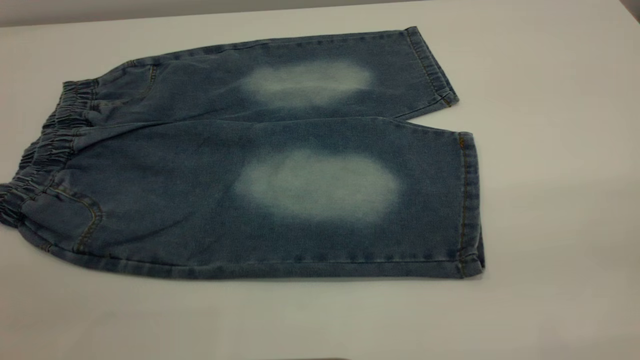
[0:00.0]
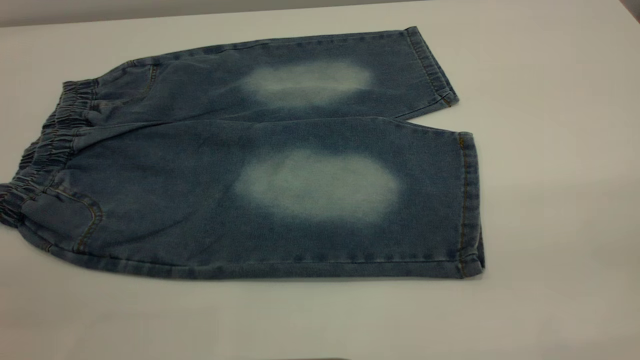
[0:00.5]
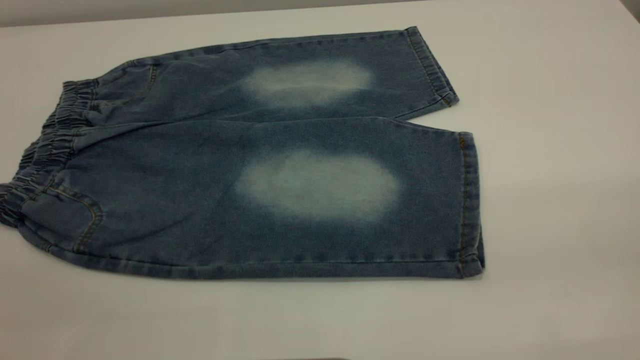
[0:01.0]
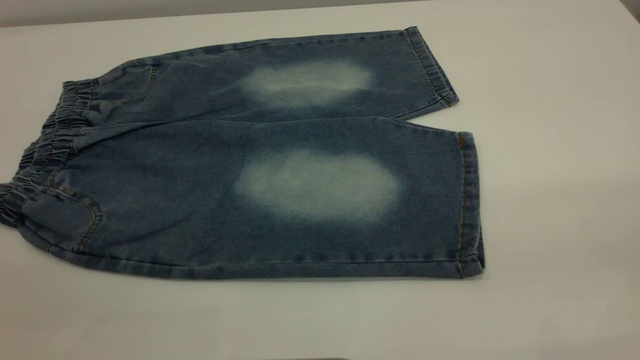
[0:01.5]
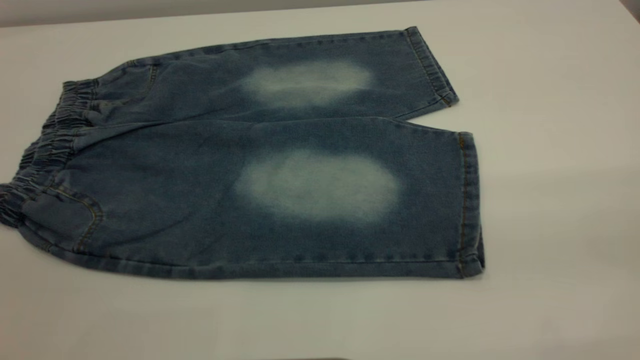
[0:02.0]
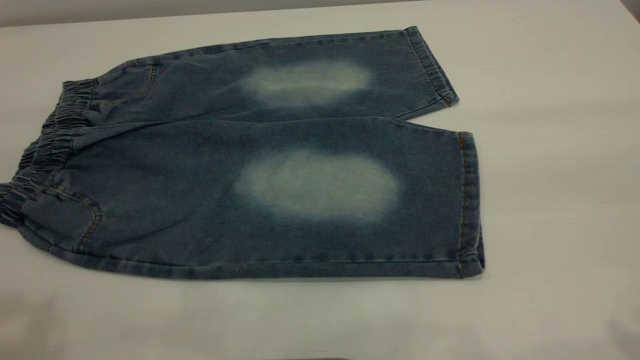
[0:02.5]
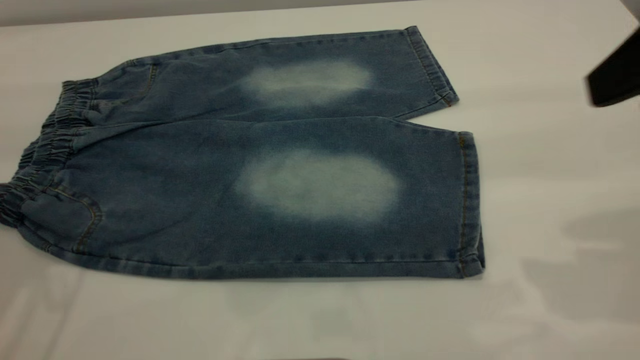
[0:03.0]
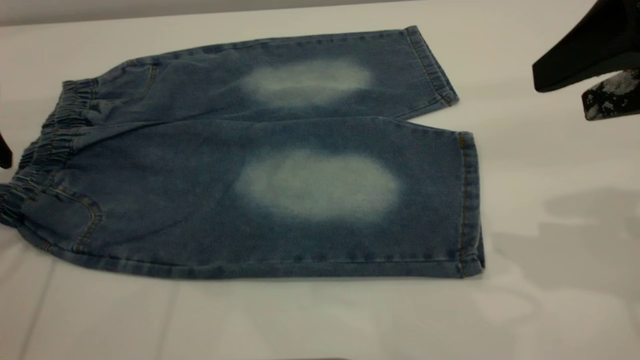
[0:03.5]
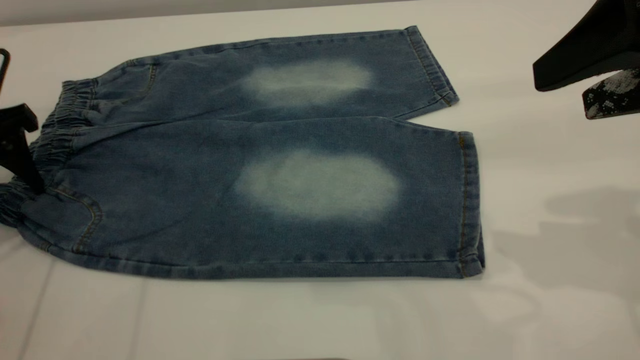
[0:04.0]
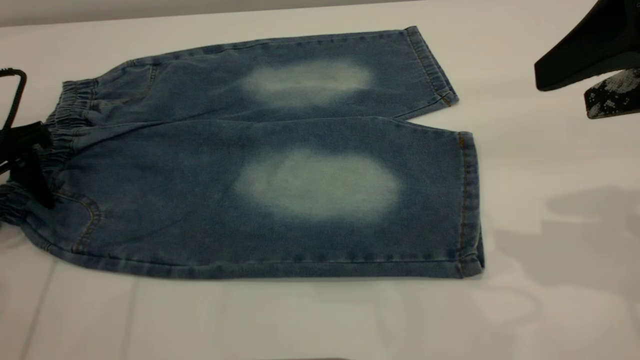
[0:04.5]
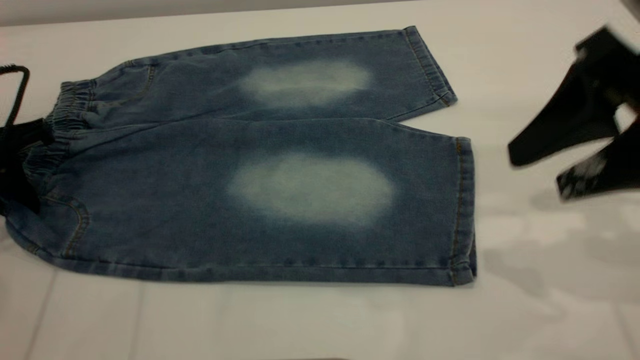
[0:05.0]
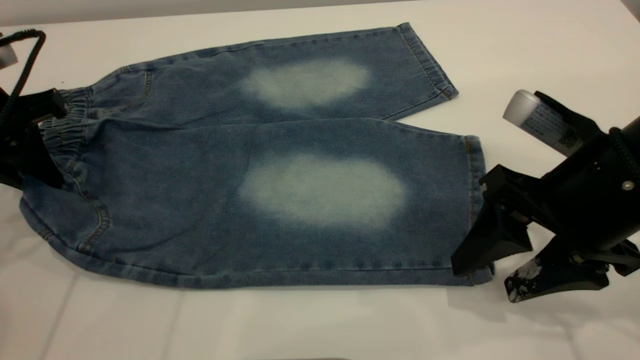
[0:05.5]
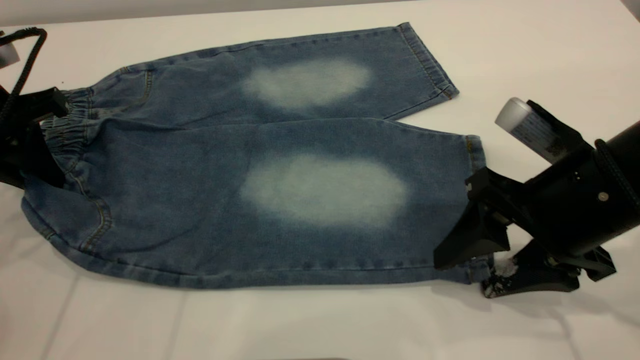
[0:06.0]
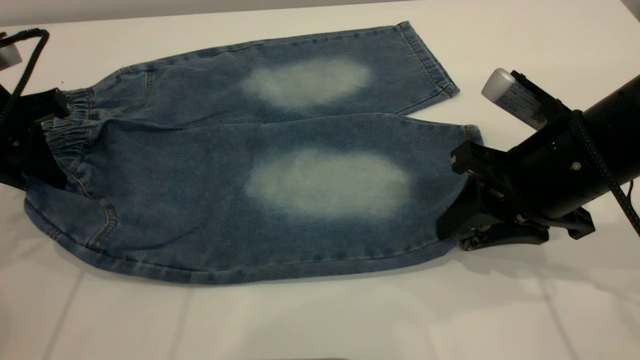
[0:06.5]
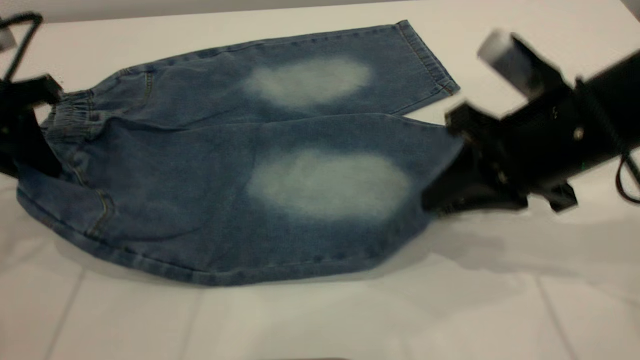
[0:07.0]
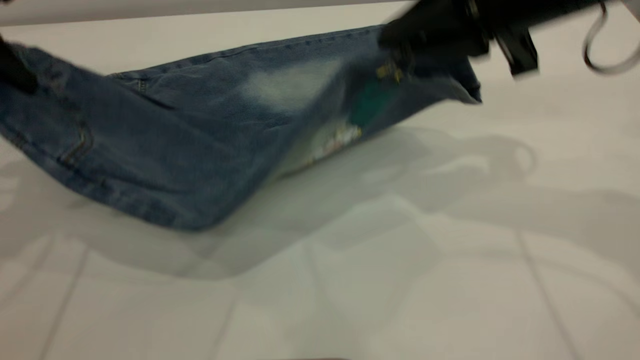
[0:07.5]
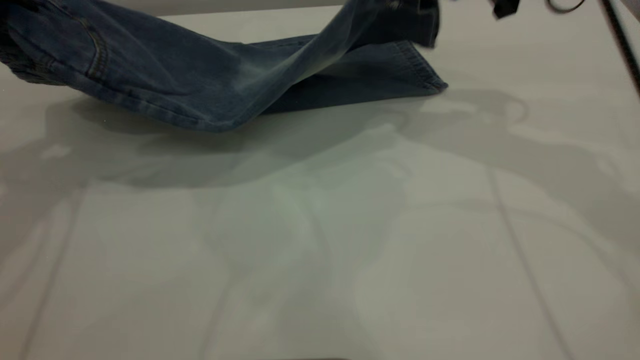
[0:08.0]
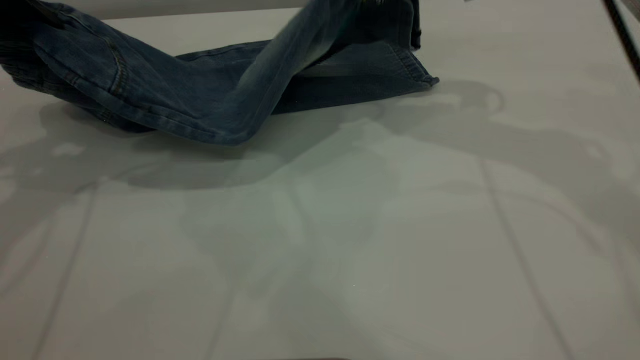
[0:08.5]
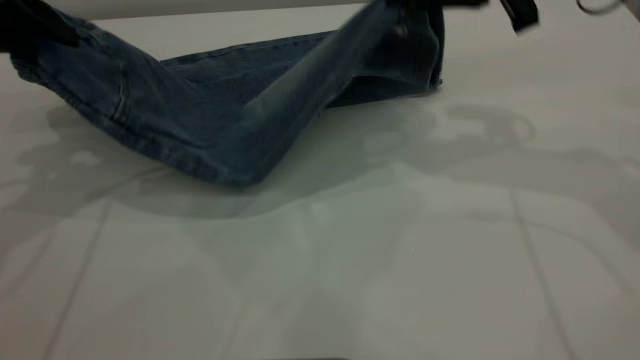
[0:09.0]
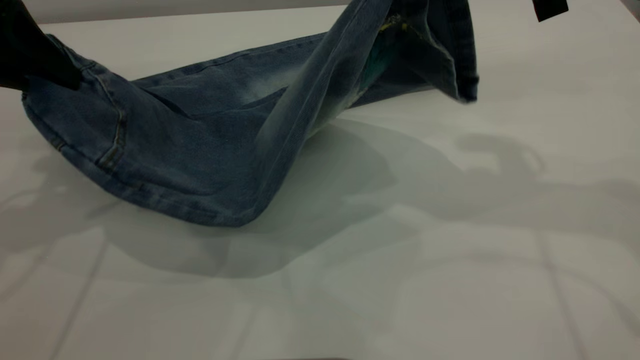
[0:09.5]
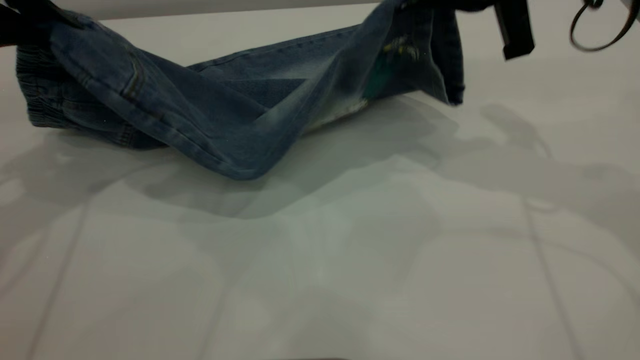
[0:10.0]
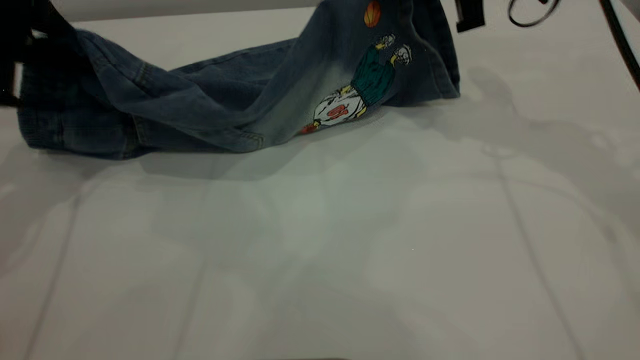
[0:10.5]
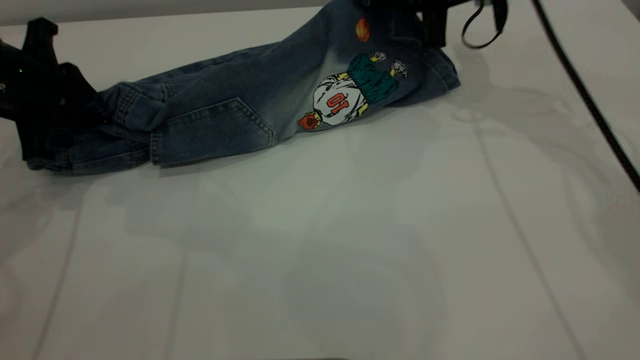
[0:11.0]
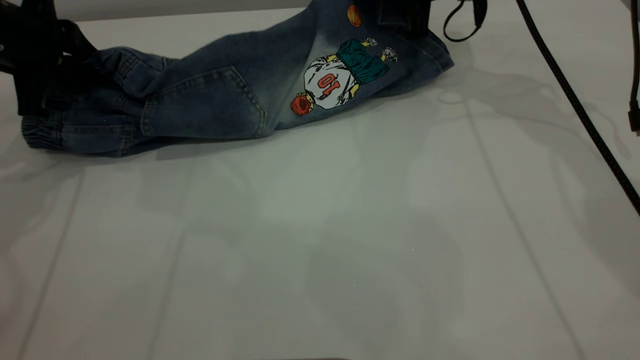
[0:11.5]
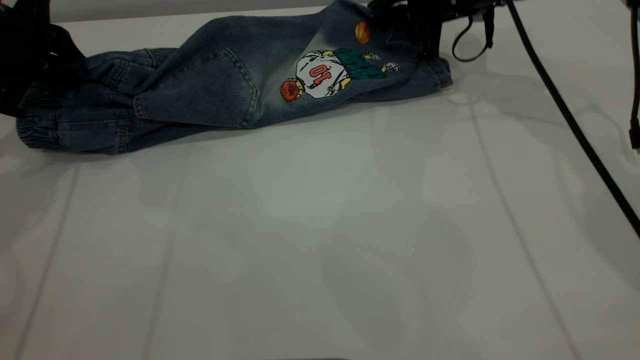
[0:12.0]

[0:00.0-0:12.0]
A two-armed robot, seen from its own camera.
0:02.0 to 0:04.0: The left gripper moves forward and downward, approximately 40 cm, while the right gripper goes approximately 25 cm forward and downward.
0:04.0 to 0:06.0: The left gripper closes its fingers; the right gripper shifts some 15 cm downward.
0:06.0 to 0:08.0: The left gripper heads upward, covering approximately 10 cm, while the right gripper is displaced forward and upward by approximately 20 cm, and closes.
0:10.0 to 0:12.0: The right gripper is displaced forward and downward by some 20 cm; the left gripper goes about 10 cm downward and forward.

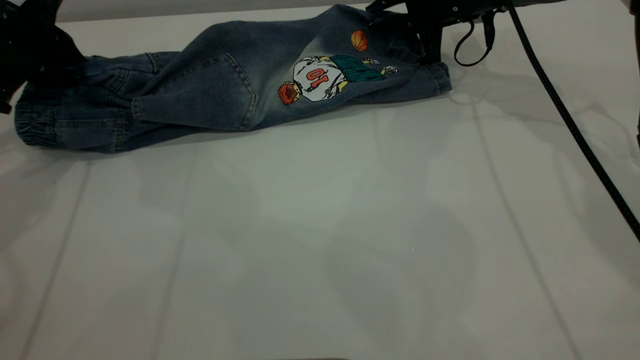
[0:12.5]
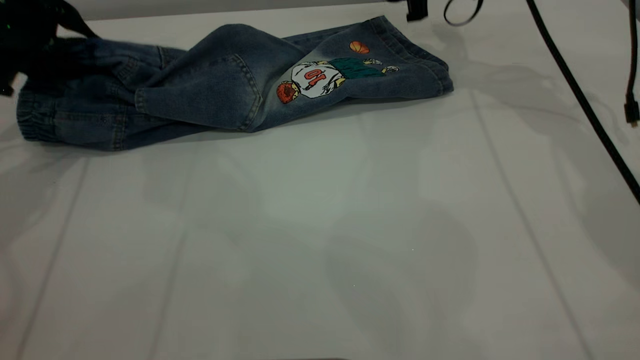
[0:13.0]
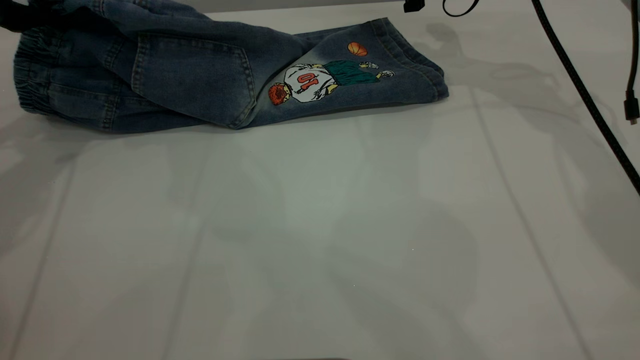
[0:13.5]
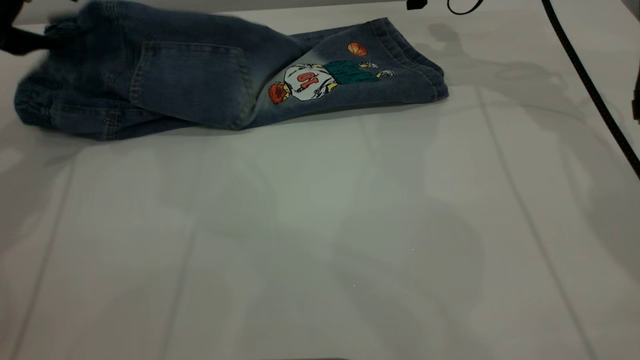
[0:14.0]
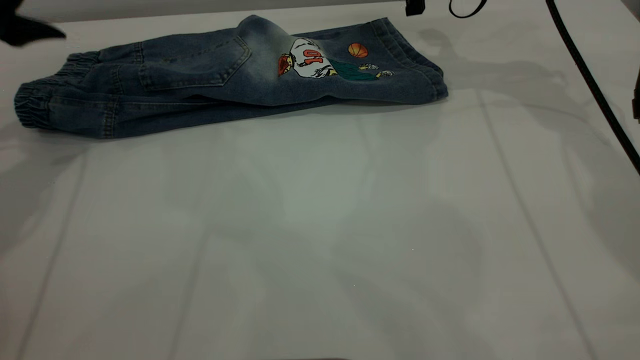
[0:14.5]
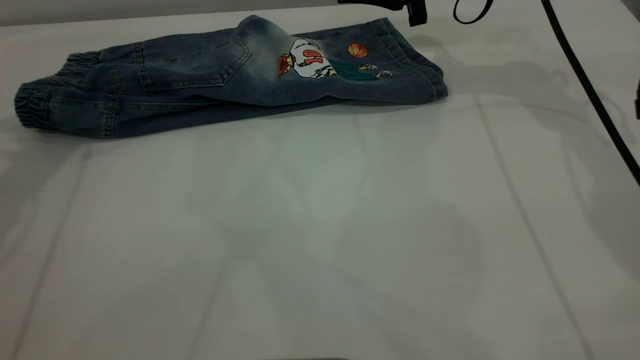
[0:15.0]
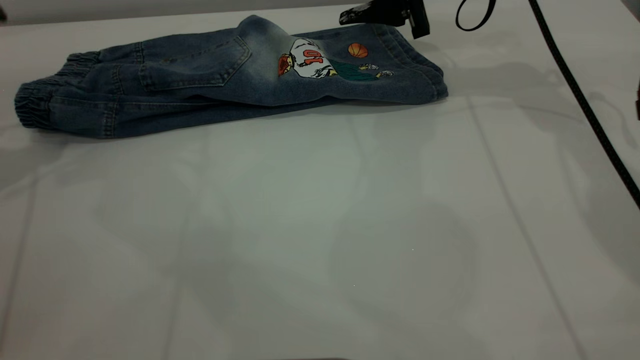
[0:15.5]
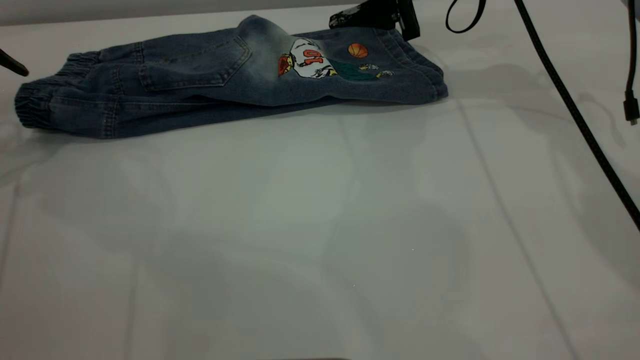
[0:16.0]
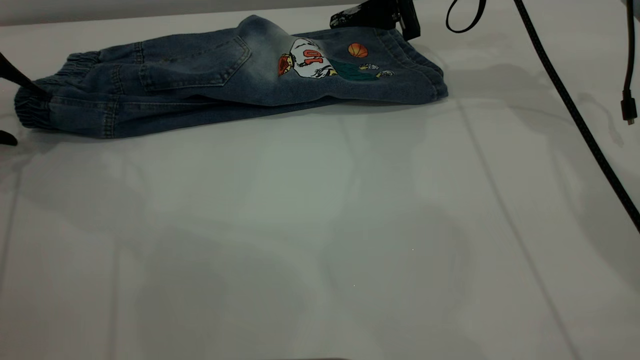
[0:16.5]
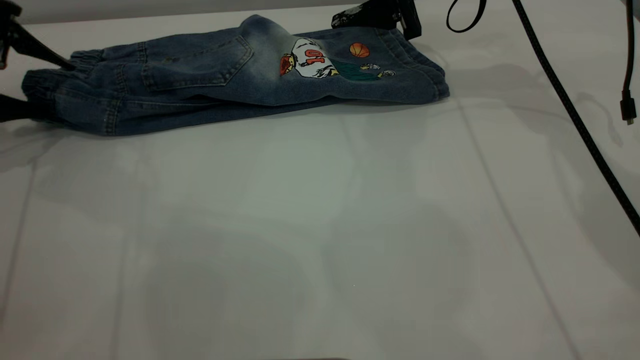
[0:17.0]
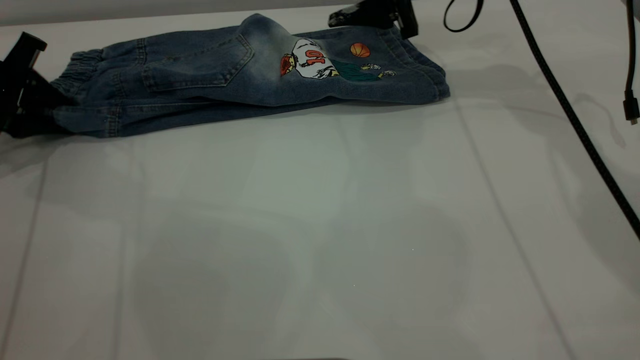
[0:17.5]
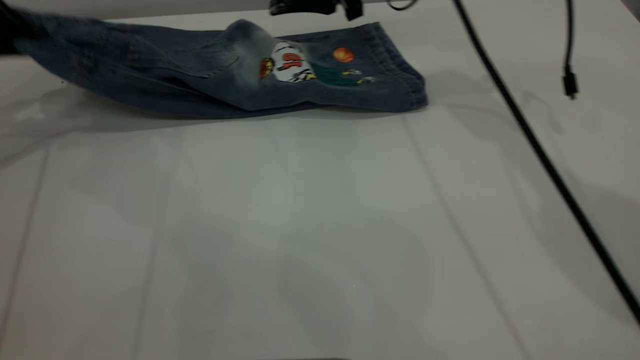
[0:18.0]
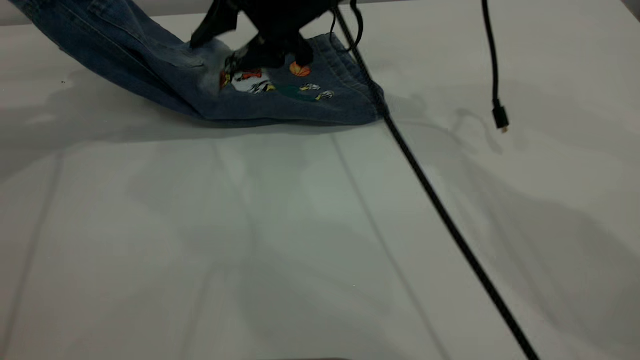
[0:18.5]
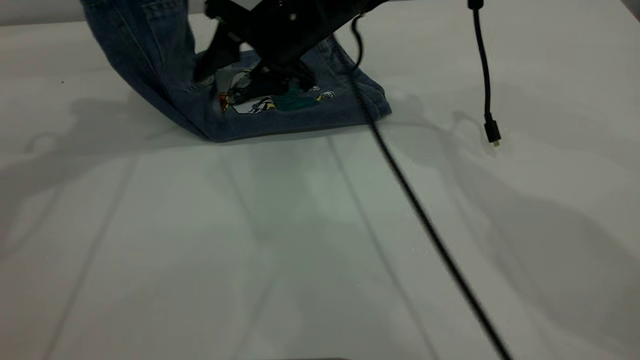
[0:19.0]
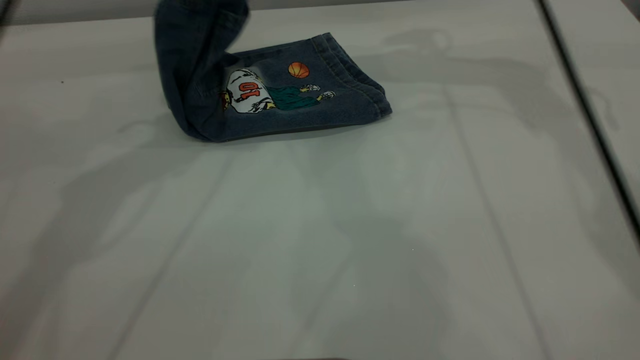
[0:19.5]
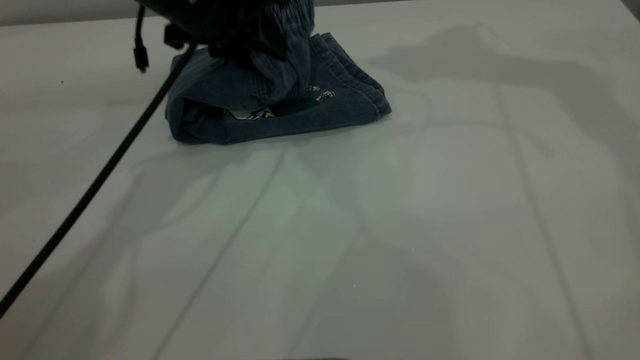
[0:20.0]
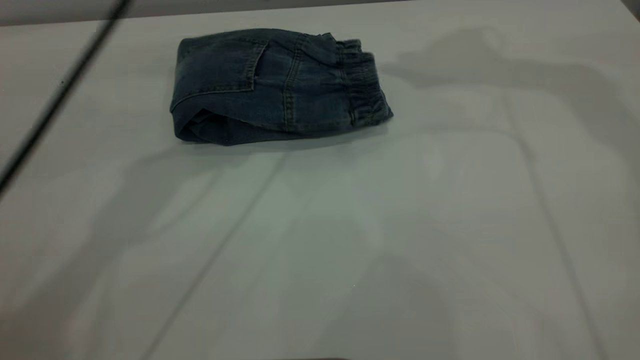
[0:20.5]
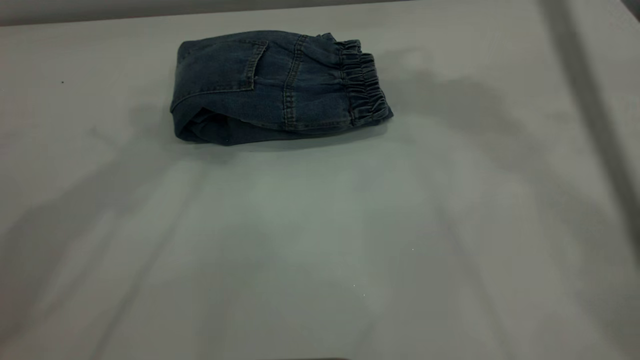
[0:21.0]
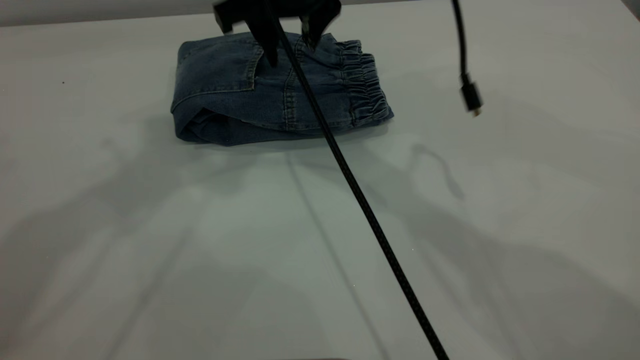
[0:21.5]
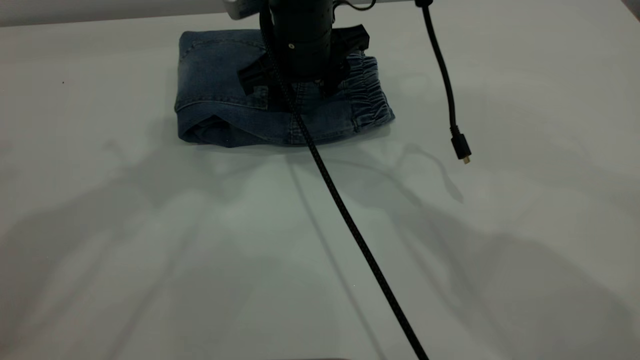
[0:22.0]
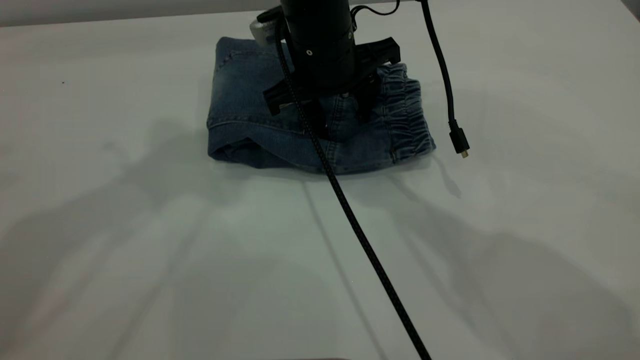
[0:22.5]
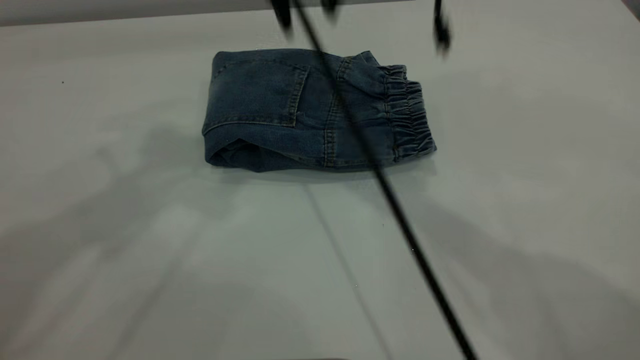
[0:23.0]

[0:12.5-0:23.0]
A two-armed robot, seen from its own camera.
Step, 0:14.5 to 0:20.5: Fold the pants from left to right.
0:12.5 to 0:14.5: The two grippers go roughly 5 cm upward. The right gripper opens its fingers, while the left gripper opens up.
0:14.5 to 0:16.5: The left gripper moves to the left and downward, about 10 cm.
0:16.5 to 0:19.0: The left gripper shifts some 20 cm upward and to the right, and closes up, while the right gripper travels to the left by about 15 cm.
0:19.0 to 0:21.0: The left gripper is displaced upward and to the right by approximately 15 cm, and opens up. Meanwhile the right gripper travels upward by approximately 20 cm.
0:21.0 to 0:23.0: The right gripper shifts roughly 10 cm to the left, and moves roughly 20 cm downward and comes back. Meanwhile the left gripper moves approximately 5 cm.
